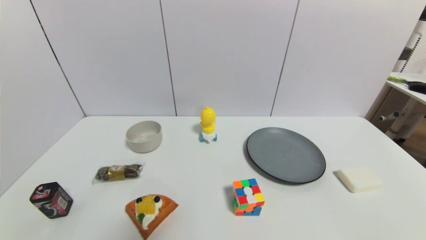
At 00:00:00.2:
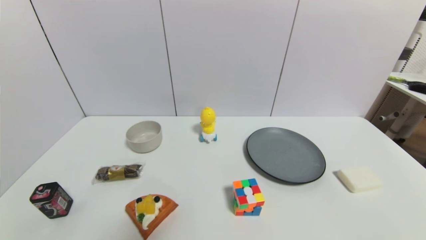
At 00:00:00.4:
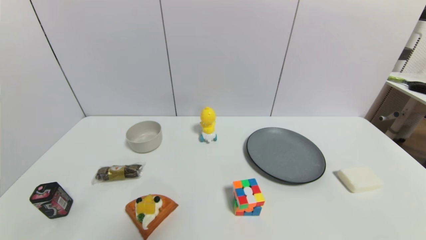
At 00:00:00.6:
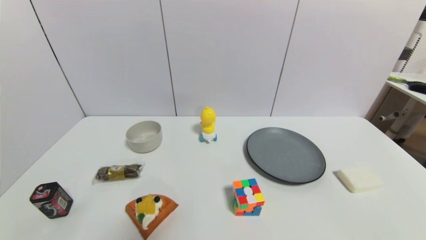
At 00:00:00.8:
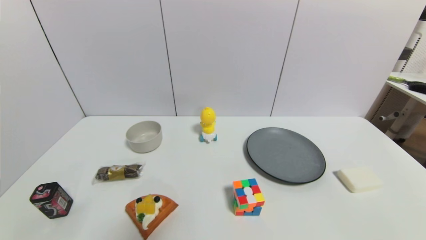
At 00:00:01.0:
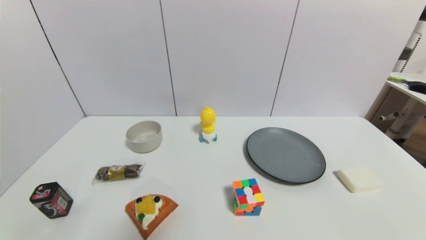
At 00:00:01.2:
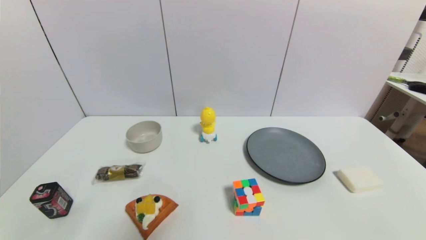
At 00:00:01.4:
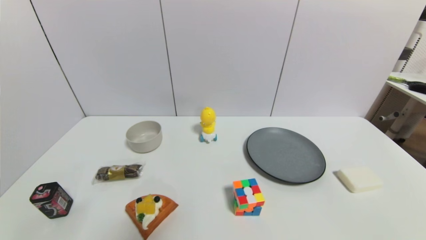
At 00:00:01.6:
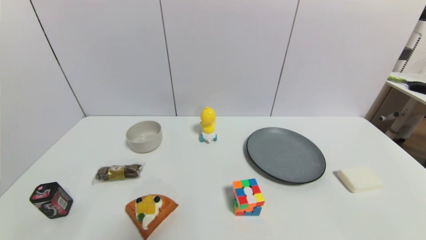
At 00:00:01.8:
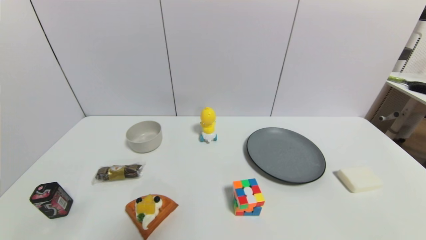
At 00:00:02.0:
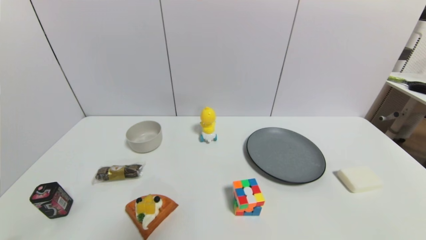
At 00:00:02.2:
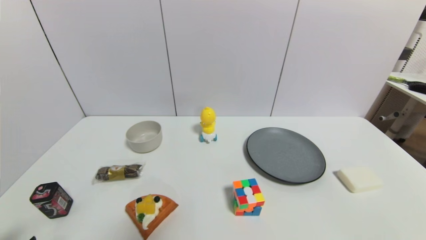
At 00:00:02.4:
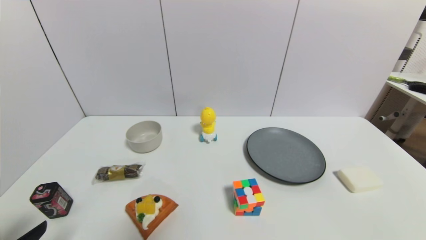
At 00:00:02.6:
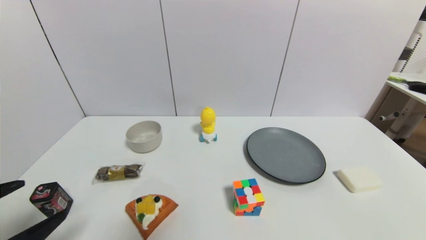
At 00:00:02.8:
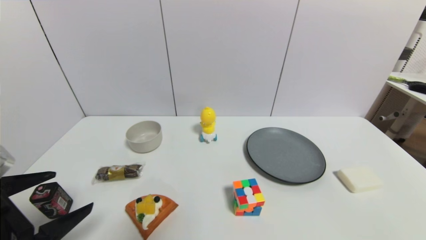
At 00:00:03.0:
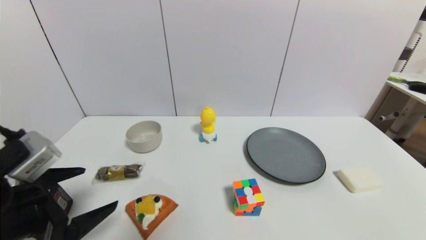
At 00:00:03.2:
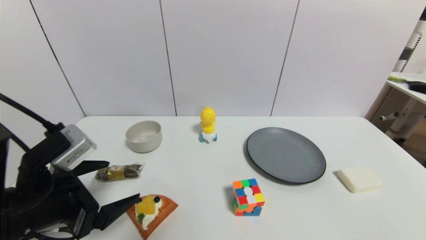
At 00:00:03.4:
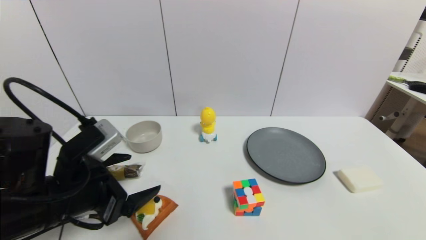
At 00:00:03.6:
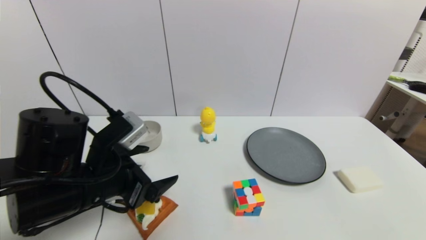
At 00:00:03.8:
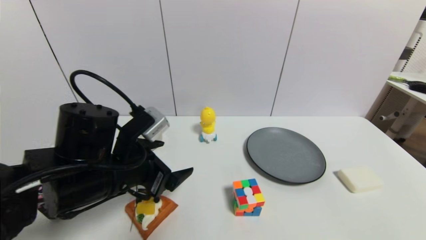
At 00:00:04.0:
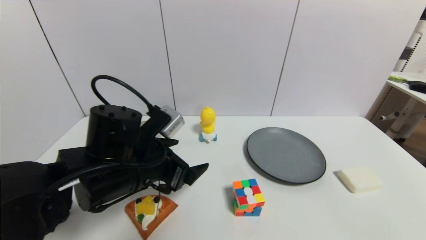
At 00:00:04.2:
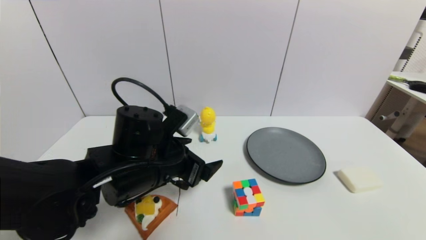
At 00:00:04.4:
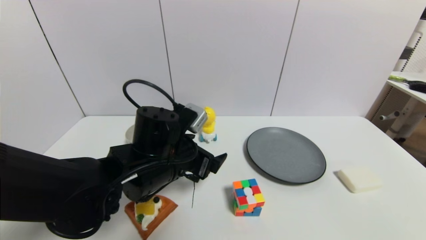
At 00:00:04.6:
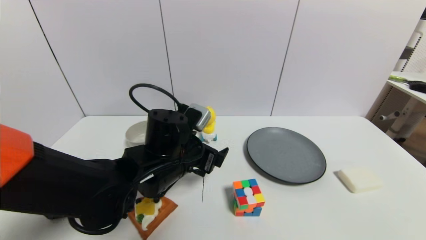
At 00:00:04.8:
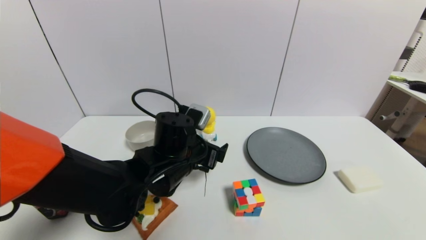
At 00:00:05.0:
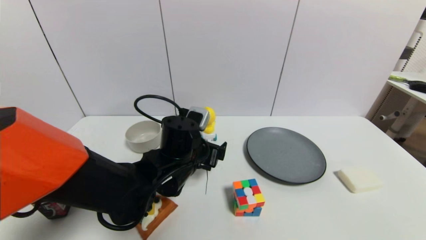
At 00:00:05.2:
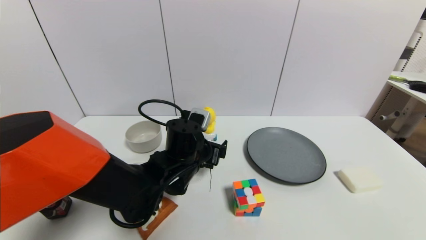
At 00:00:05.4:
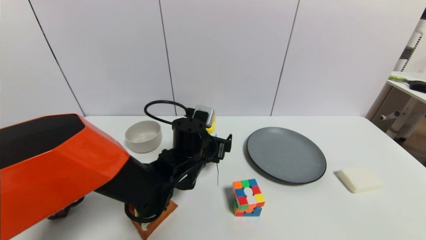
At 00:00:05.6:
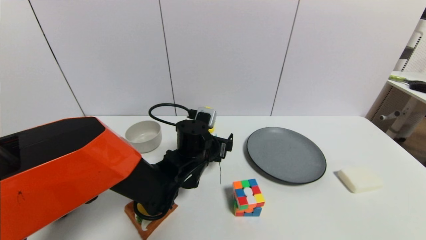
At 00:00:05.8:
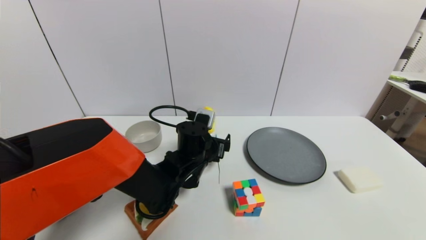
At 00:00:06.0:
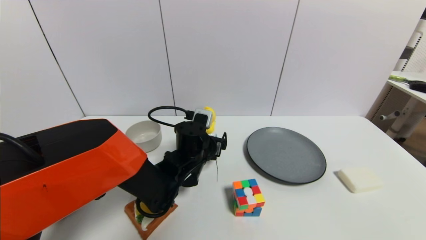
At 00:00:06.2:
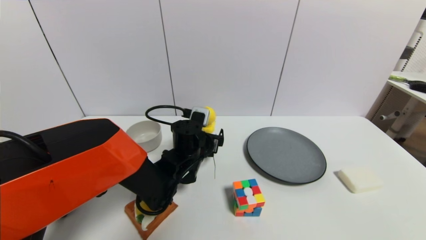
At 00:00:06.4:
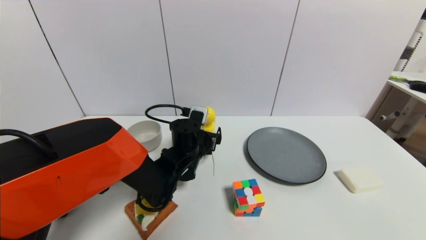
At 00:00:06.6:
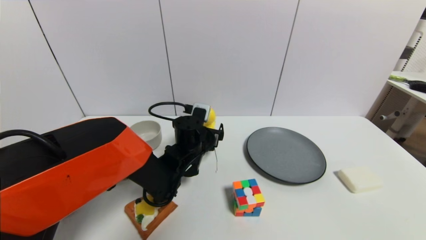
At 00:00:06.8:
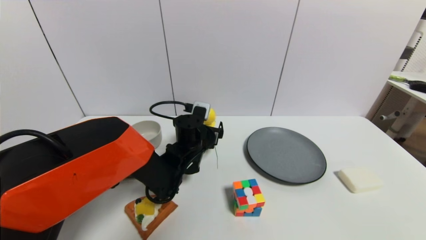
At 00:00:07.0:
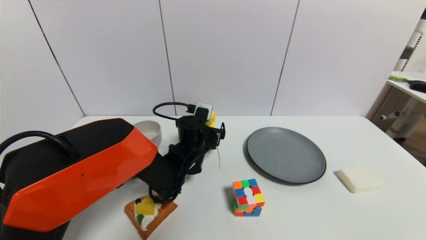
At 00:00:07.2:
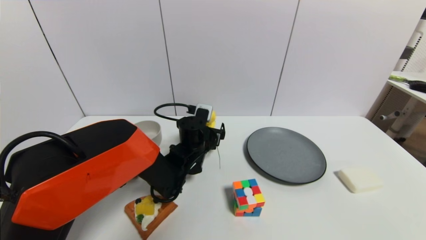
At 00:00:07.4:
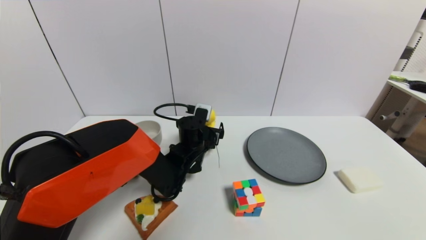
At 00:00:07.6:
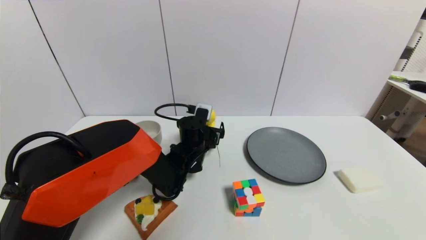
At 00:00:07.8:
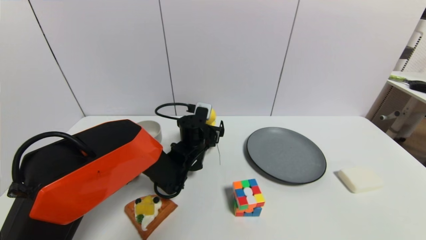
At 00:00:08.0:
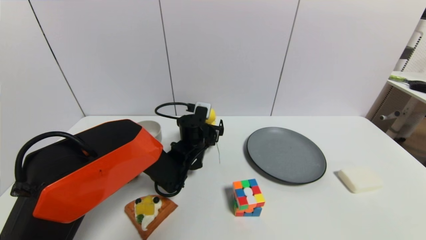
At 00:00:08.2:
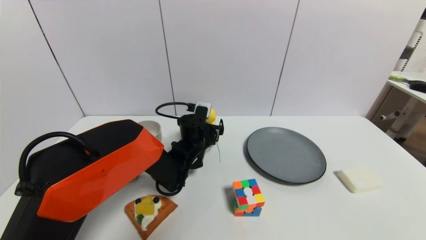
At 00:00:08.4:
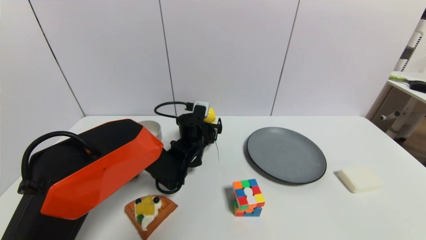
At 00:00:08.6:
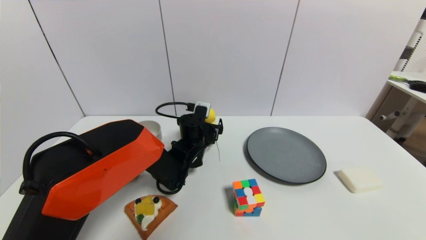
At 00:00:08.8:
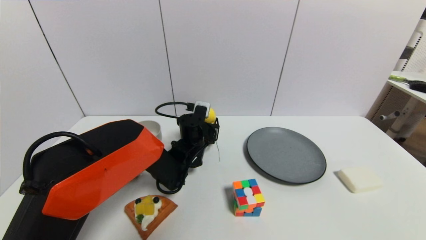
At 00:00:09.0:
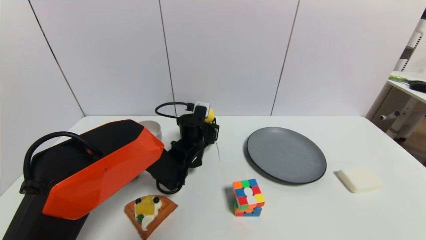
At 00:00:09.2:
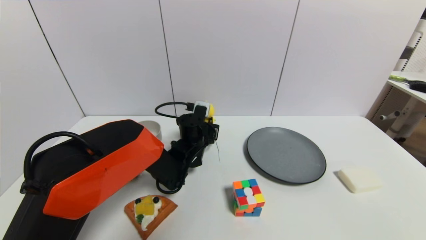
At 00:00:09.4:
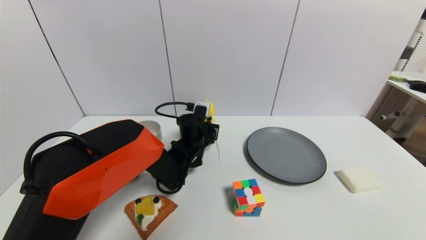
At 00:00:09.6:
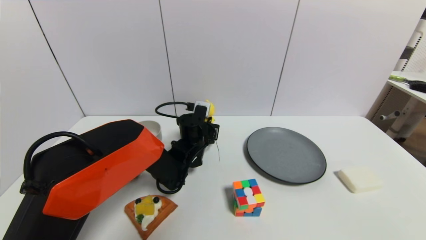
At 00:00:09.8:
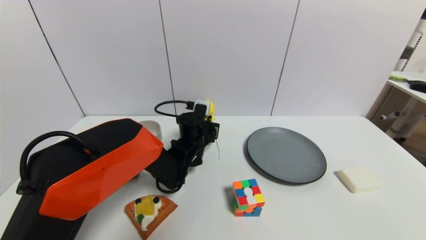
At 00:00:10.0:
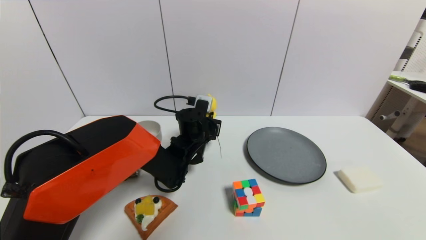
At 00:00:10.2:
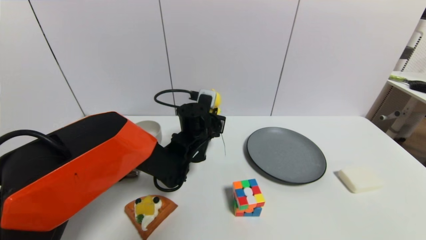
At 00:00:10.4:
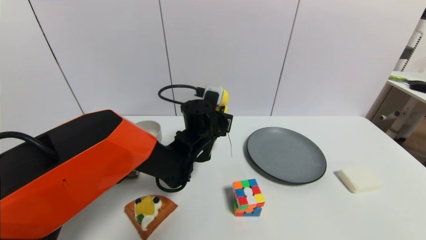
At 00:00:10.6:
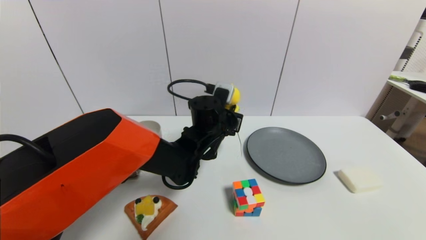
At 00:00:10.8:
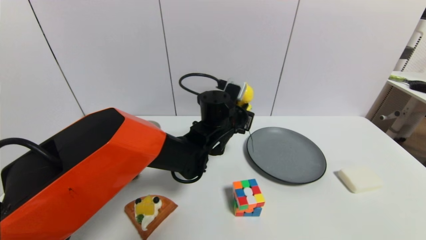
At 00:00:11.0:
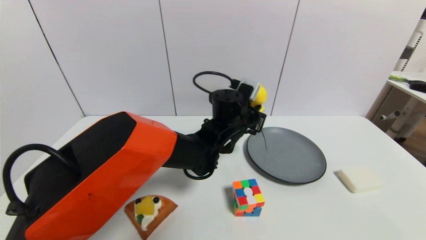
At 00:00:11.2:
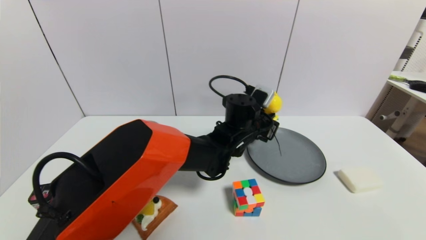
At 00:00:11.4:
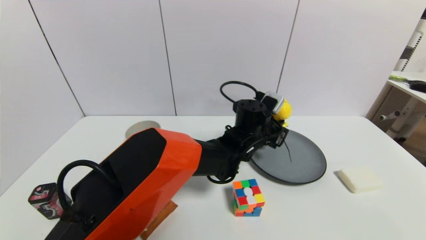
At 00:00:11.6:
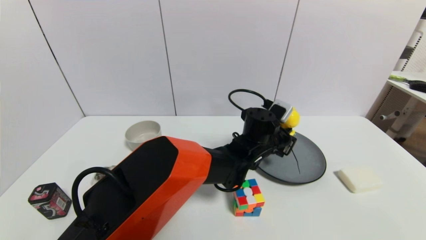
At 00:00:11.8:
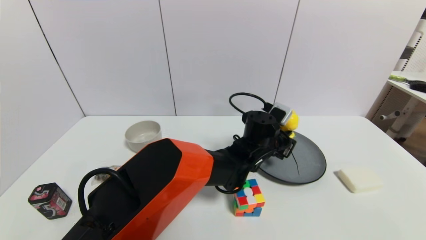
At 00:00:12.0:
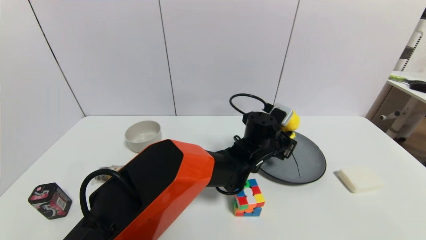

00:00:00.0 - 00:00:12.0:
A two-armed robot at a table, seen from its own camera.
Task of the whole recording: use a gripper to pick the target object and place on the gray plate.
Step, 00:00:00.0 - 00:00:09.4: Grasp the duck toy with the left gripper.
00:00:00.0 - 00:00:01.6: Both grippers stay about where they are.
00:00:01.6 - 00:00:03.0: The left gripper travels upward and forward by about 20 cm.
00:00:03.0 - 00:00:04.4: The left gripper shifts some 20 cm to the right and forward.
00:00:04.4 - 00:00:06.0: The left gripper shifts roughly 10 cm forward and downward.
00:00:06.0 - 00:00:07.6: The grippers make only small movements.
00:00:07.6 - 00:00:09.0: The left gripper closes up.
00:00:09.0 - 00:00:10.4: The left gripper moves upward, roughly 5 cm, and closes up.
00:00:10.4 - 00:00:12.0: The left gripper shifts roughly 15 cm to the right.

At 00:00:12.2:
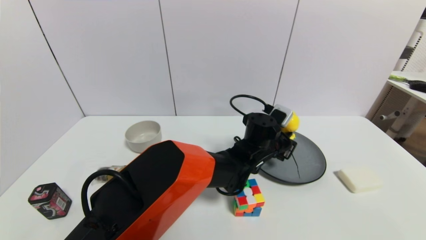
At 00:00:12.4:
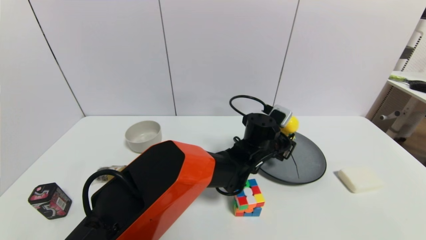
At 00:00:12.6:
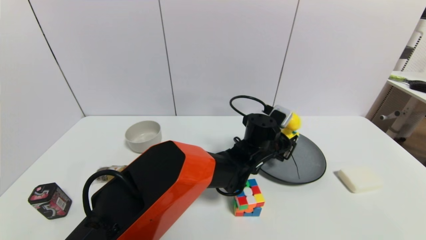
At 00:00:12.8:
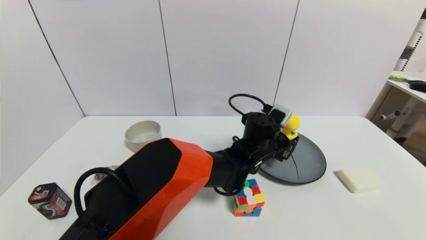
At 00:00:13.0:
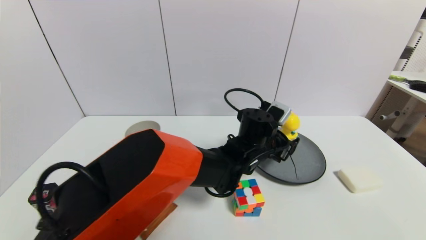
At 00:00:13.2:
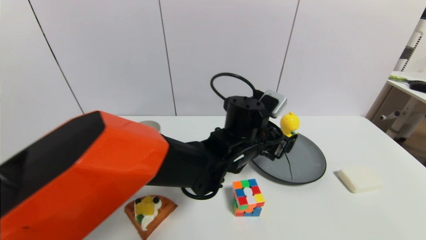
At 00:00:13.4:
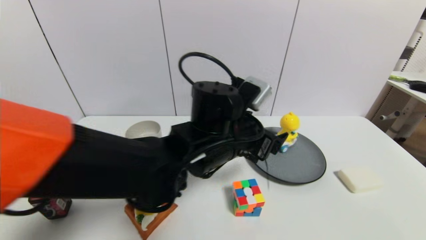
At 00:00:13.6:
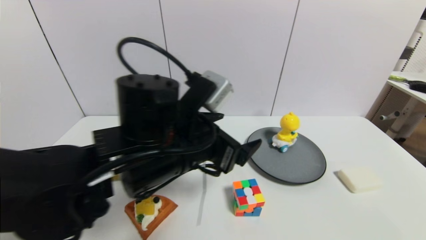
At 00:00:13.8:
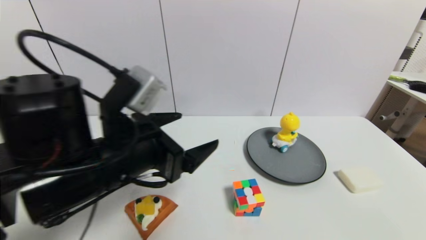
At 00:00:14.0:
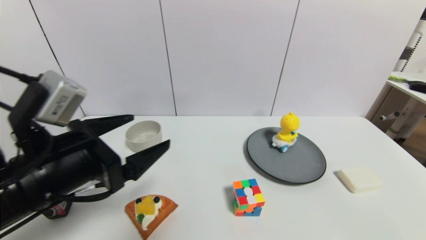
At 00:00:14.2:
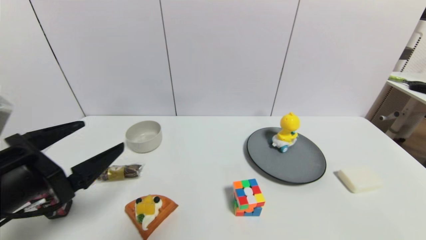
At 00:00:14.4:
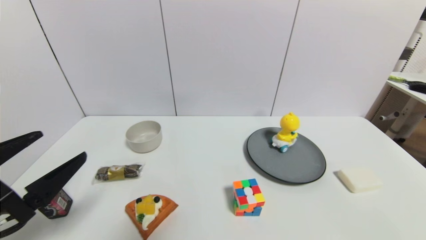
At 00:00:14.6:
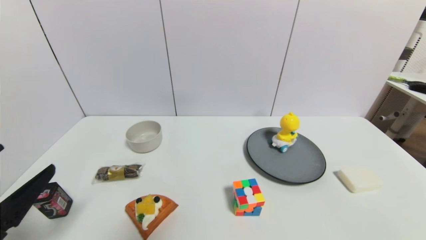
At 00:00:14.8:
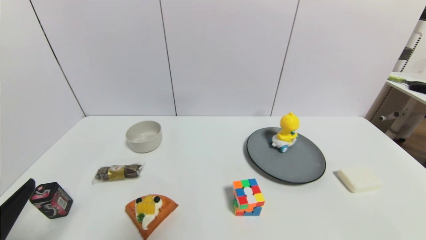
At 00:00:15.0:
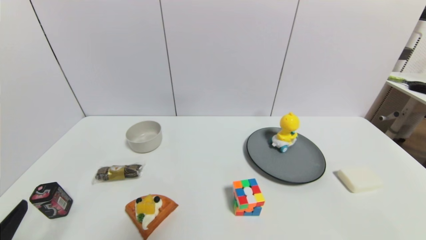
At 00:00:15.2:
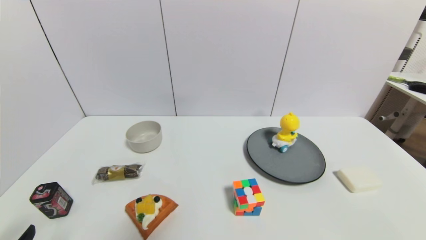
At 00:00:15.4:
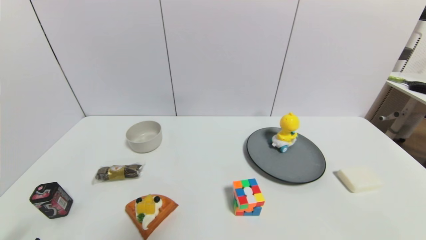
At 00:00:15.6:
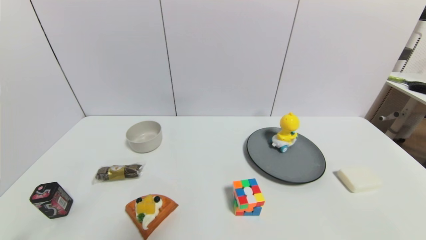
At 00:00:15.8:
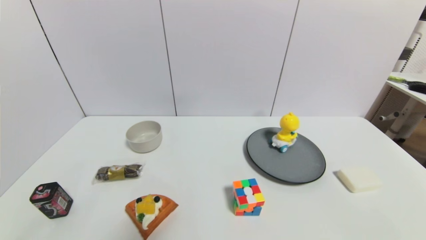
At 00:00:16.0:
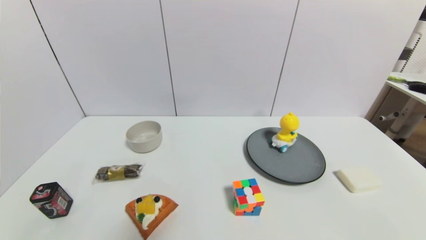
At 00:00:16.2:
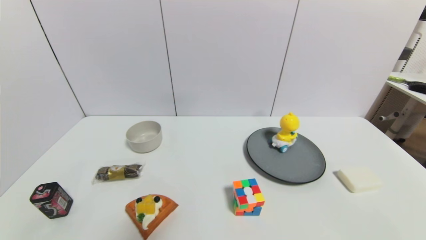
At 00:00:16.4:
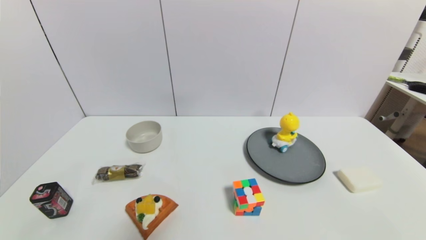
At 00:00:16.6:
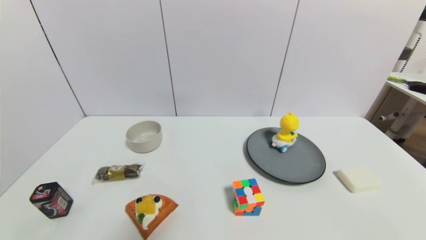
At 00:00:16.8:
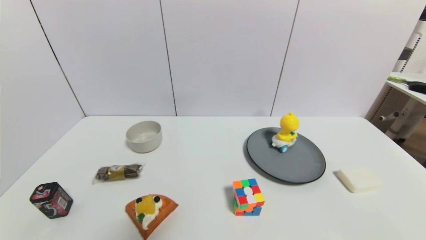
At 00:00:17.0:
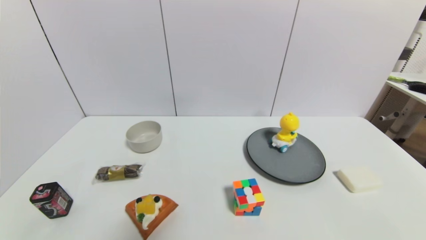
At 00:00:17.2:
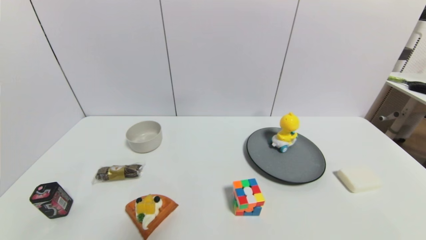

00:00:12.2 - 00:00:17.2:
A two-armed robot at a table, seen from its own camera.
Task of the whole recording: use a gripper to pick the target object and place on the gray plate.
00:00:12.2 - 00:00:13.8: The left gripper moves to the left, backward and upward, some 35 cm, and opens its fingers.
00:00:13.8 - 00:00:15.6: The left gripper travels backward, downward and to the left by roughly 30 cm.
